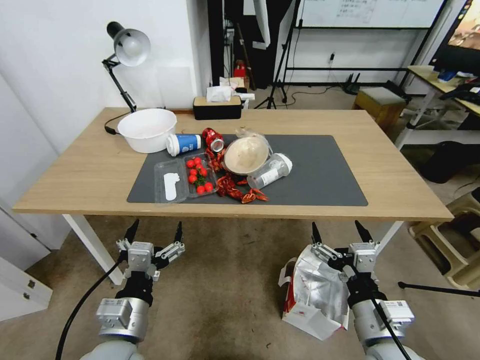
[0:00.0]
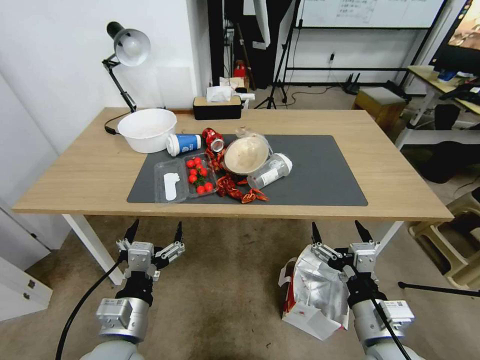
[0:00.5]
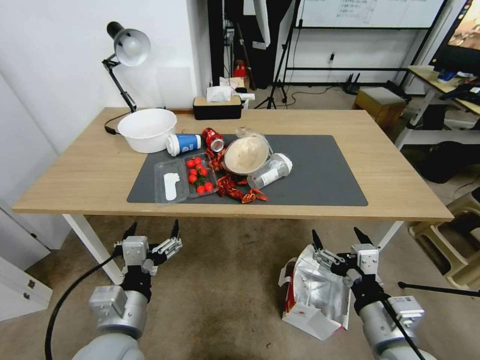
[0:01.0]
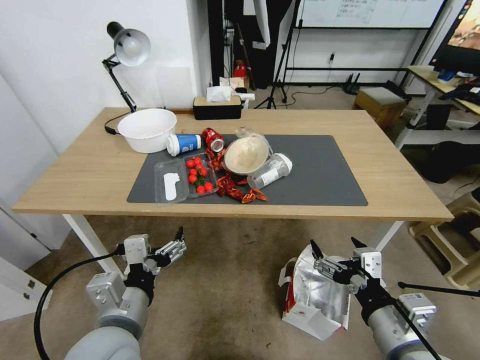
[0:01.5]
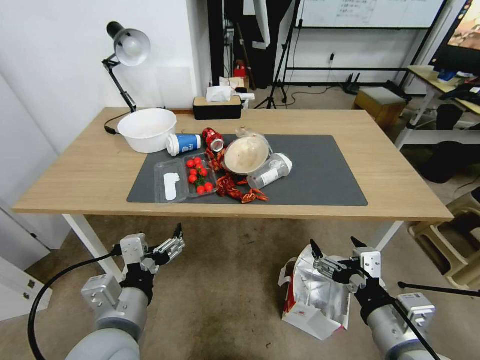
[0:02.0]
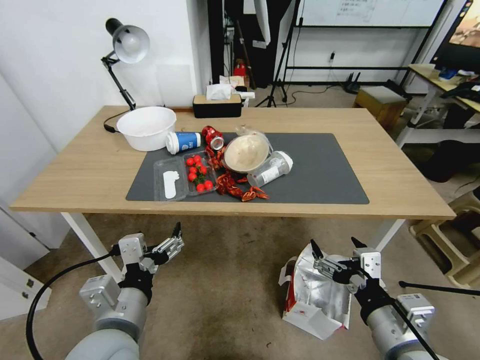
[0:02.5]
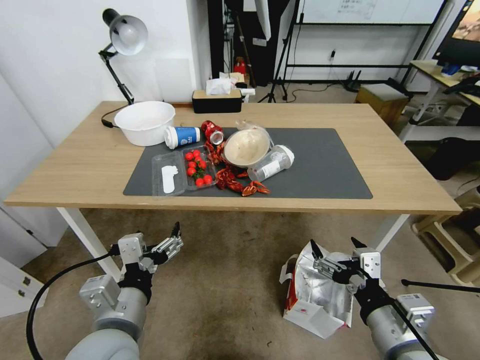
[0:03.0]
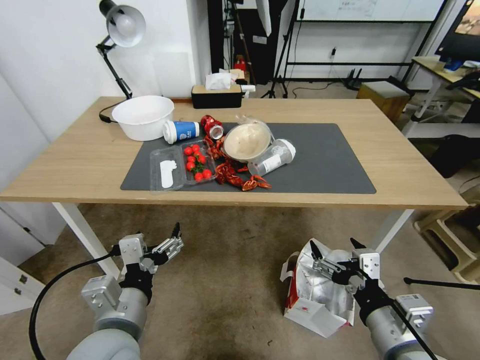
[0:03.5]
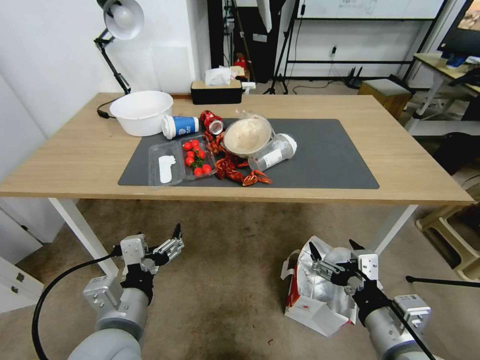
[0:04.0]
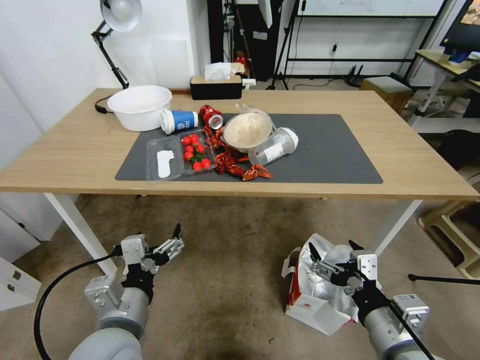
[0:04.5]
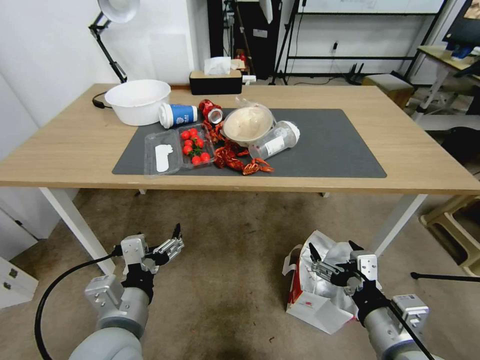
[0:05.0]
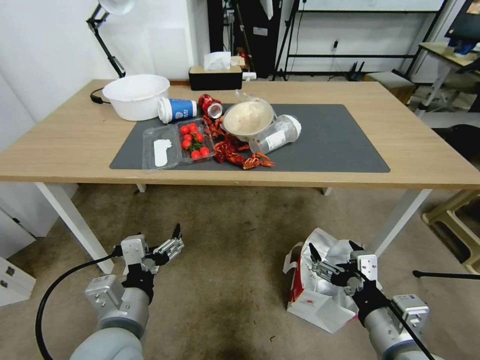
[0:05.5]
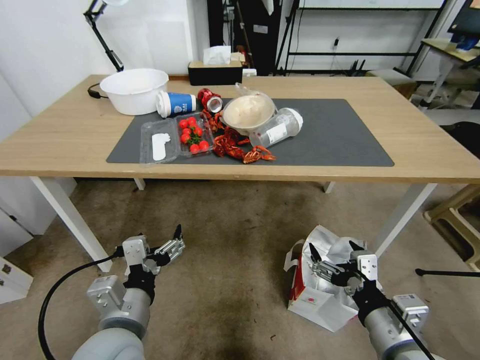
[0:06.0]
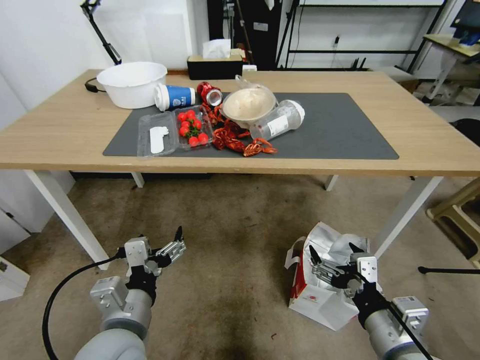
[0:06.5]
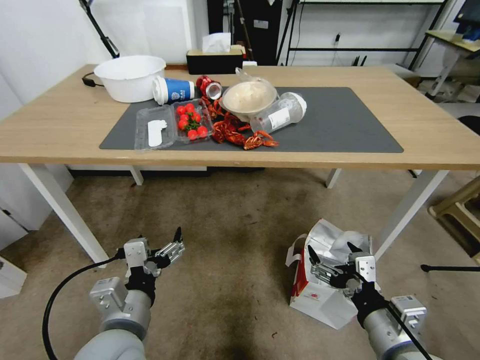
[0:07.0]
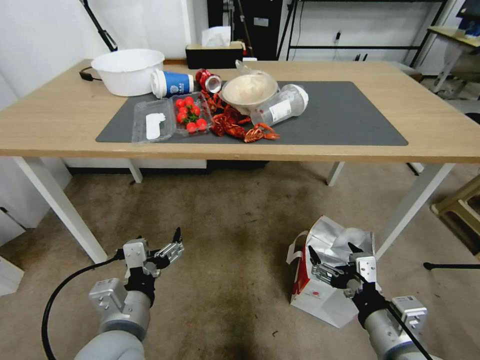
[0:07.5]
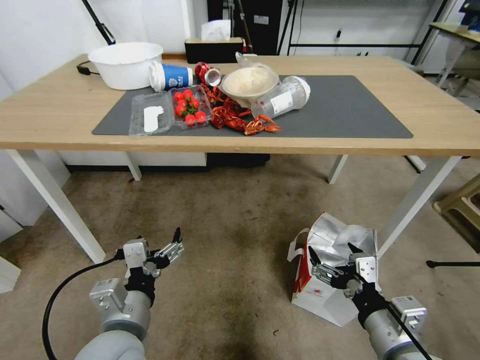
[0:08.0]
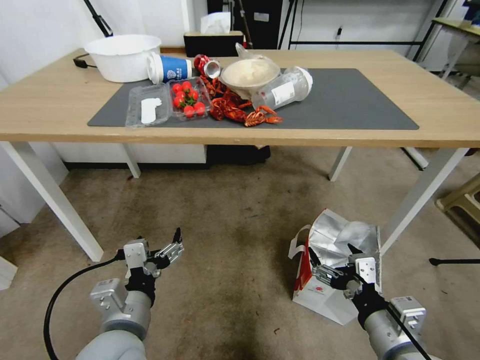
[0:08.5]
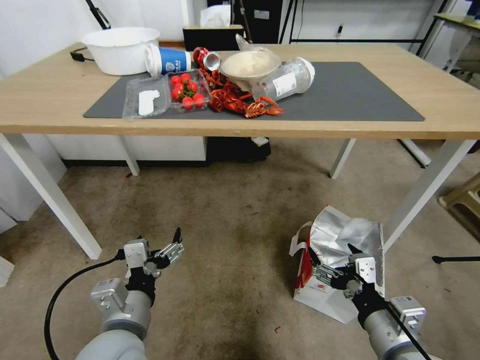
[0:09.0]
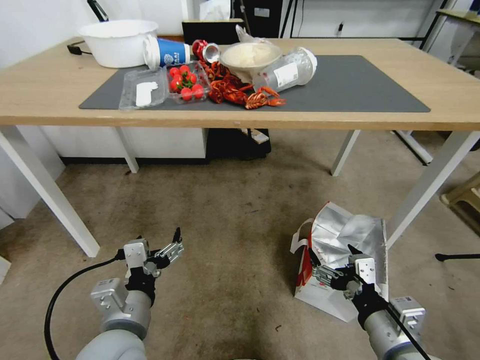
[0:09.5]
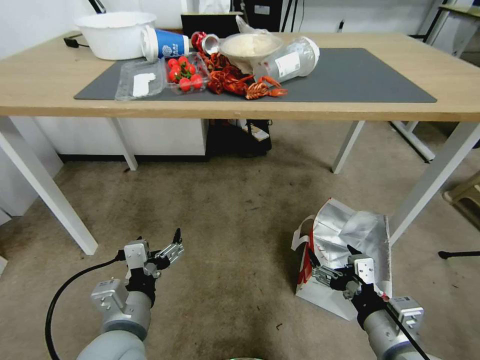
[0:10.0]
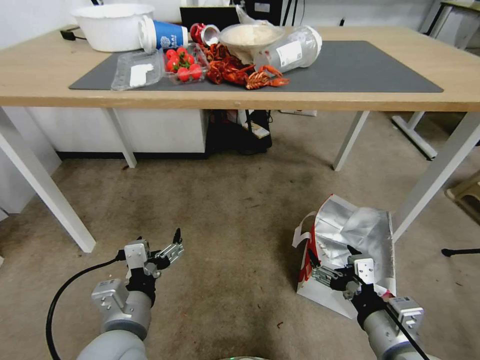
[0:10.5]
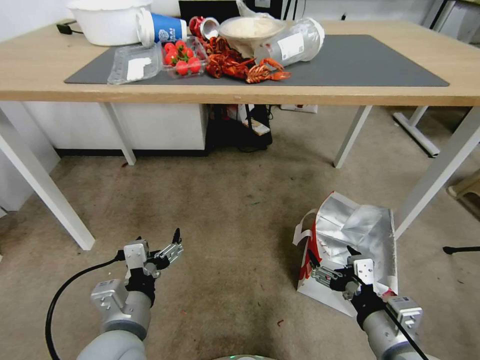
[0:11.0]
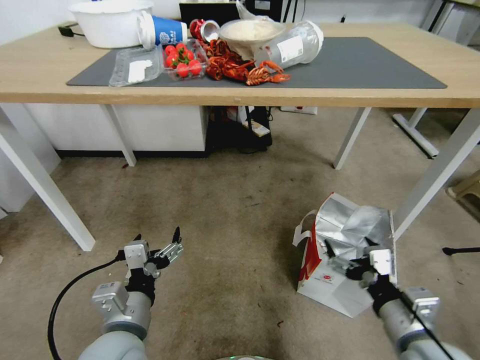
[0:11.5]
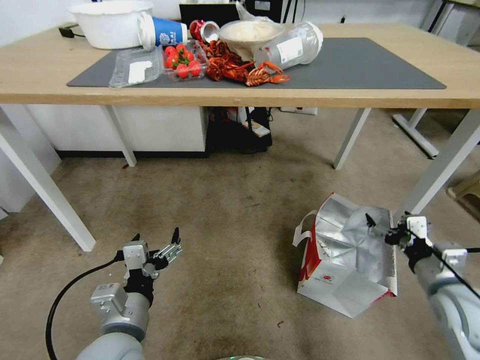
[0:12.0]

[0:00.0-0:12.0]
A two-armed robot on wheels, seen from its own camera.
Task of the whole recording: Pick up the food delivery bag from the floor and place it on the table.
0:10.0 to 0:12.0: The right gripper moves to the right and forward, roughly 15 cm.

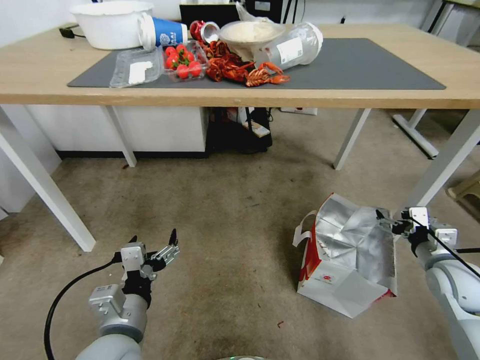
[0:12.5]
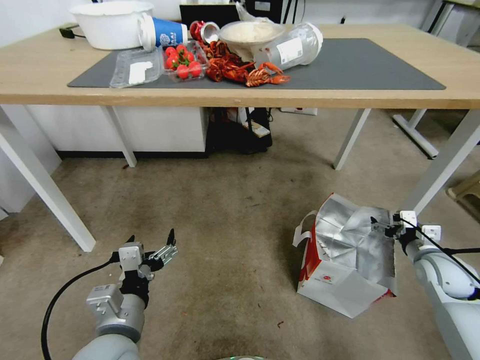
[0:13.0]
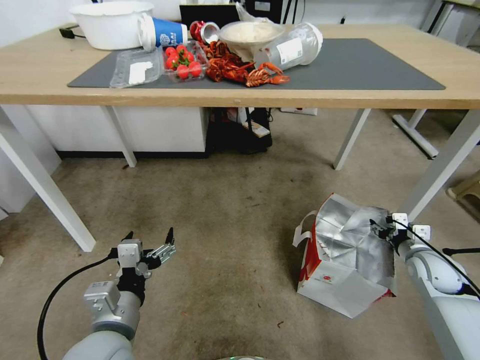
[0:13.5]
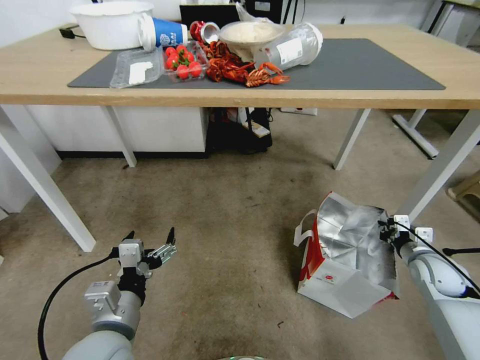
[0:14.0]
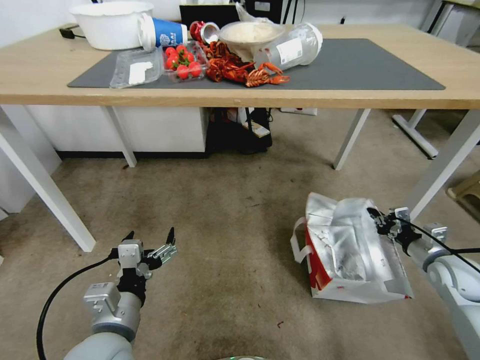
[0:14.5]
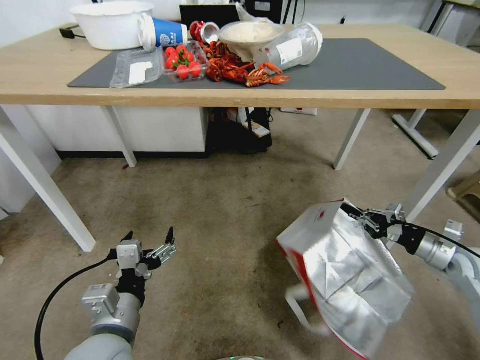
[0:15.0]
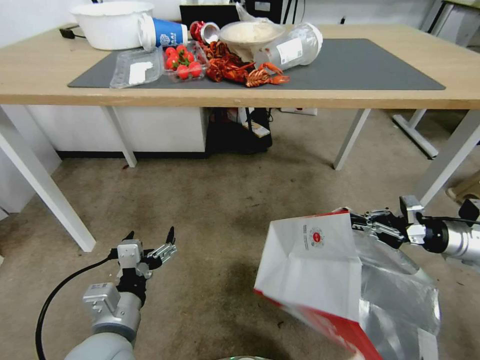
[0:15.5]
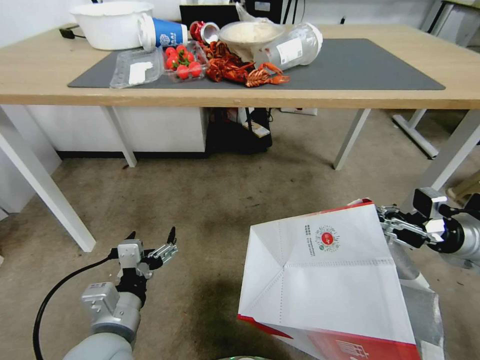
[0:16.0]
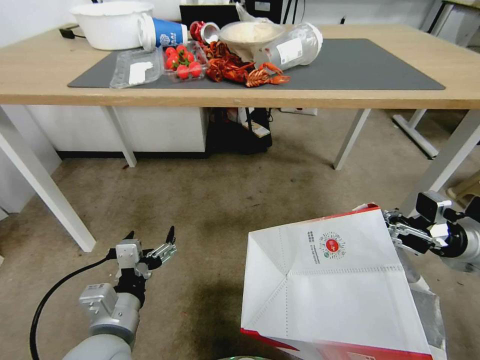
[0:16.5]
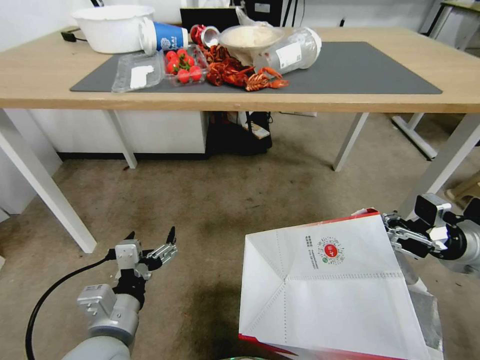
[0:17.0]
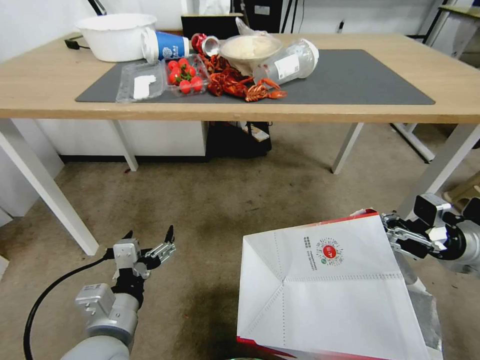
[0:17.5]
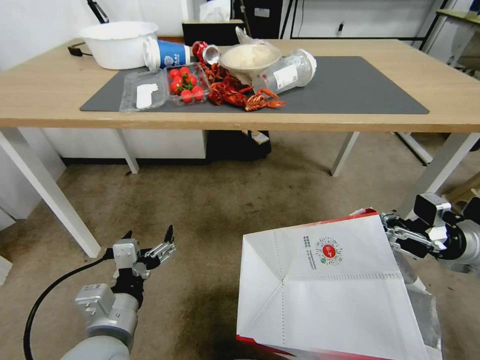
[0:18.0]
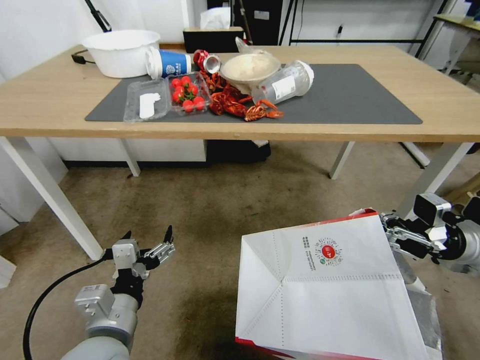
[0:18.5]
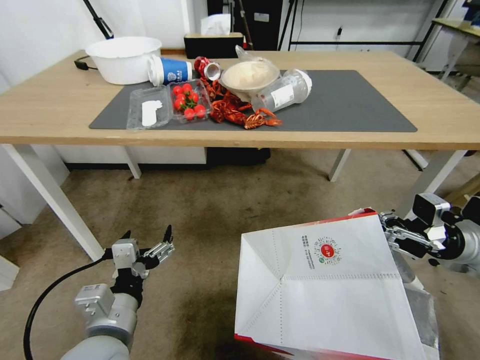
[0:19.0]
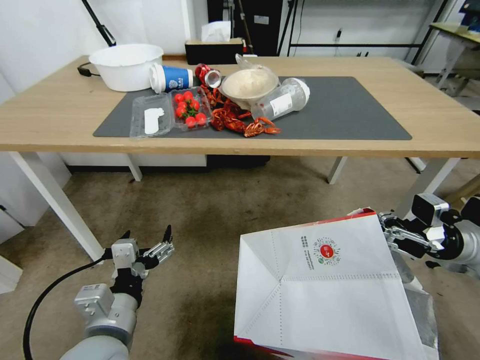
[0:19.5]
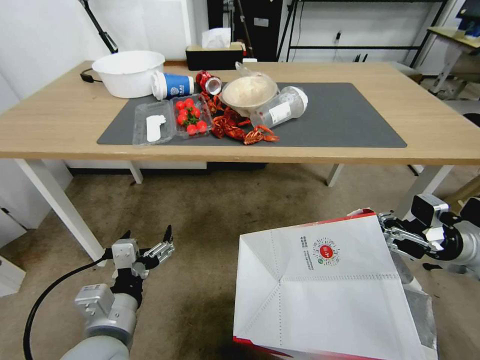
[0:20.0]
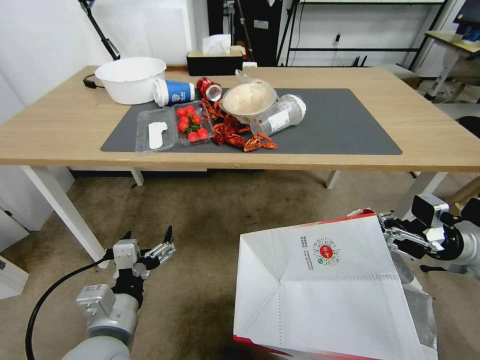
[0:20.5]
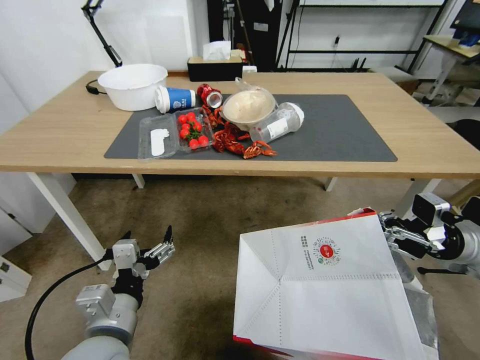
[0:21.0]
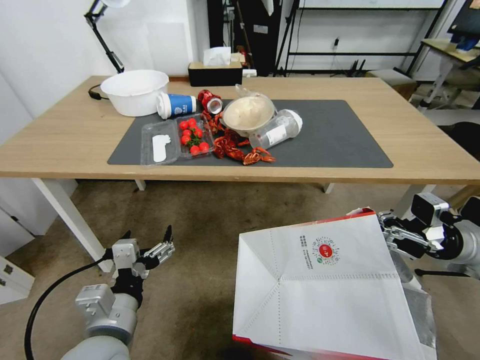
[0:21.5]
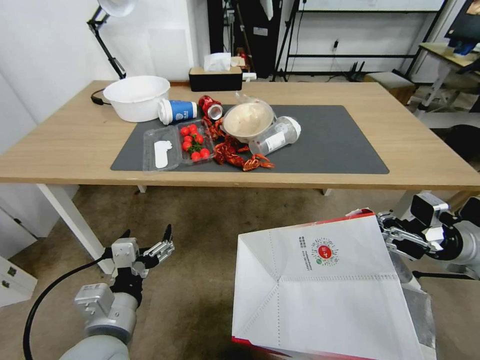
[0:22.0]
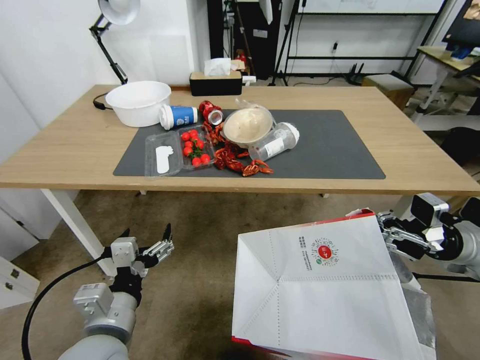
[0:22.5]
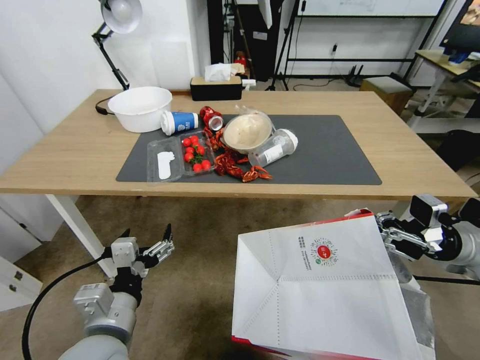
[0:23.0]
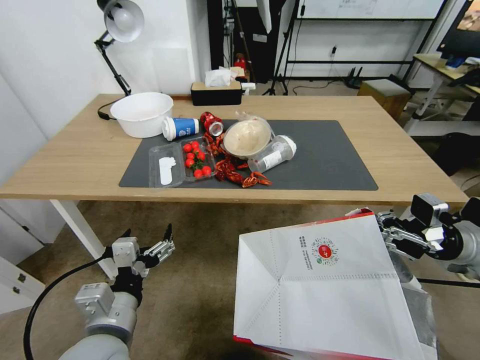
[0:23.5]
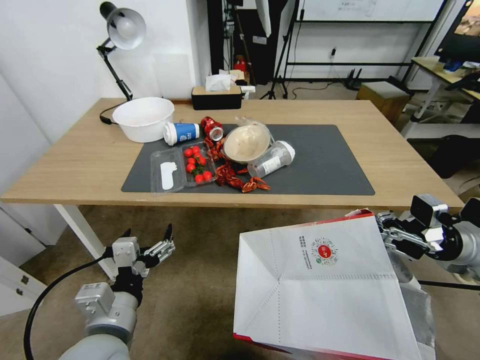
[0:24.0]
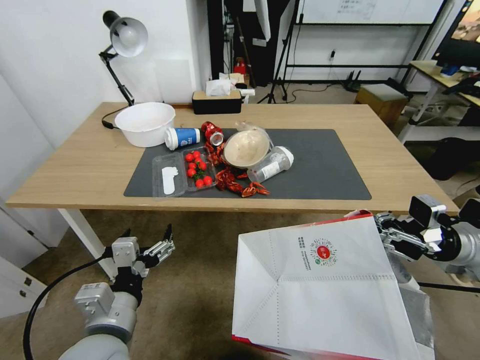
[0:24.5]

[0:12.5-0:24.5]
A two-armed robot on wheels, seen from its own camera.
Task of the whole recording: Pick up the food delivery bag from the floor and place it on the table.
0:12.5 to 0:14.5: The right gripper shifts by about 5 cm, and closes up.
0:14.5 to 0:16.5: The right gripper moves upward, roughly 10 cm.

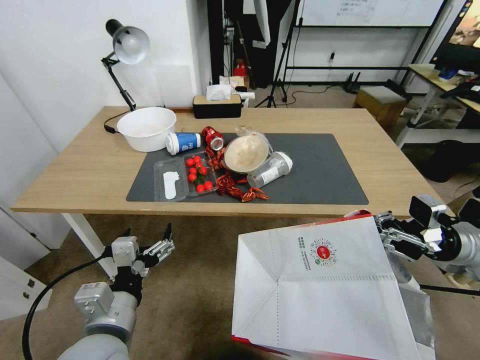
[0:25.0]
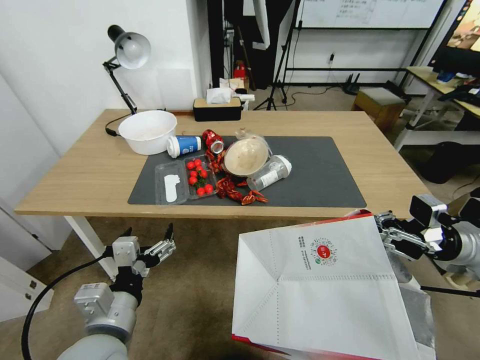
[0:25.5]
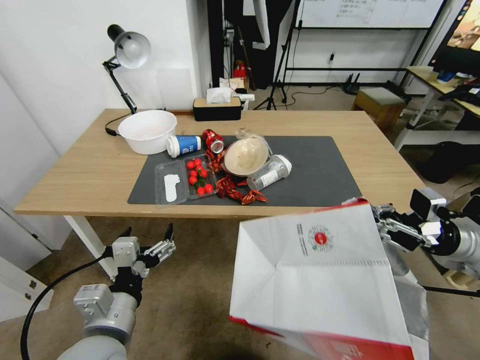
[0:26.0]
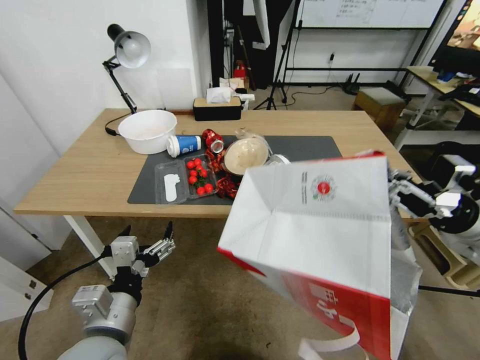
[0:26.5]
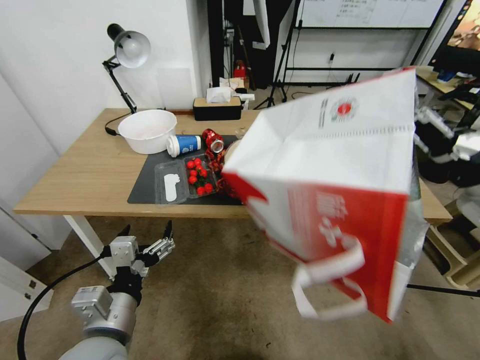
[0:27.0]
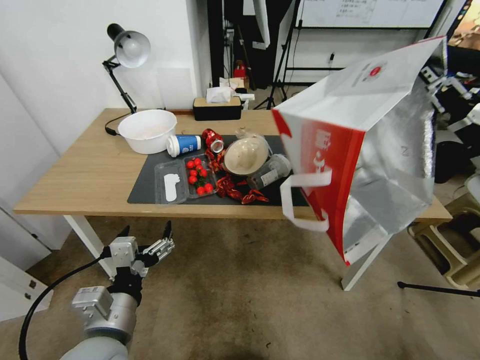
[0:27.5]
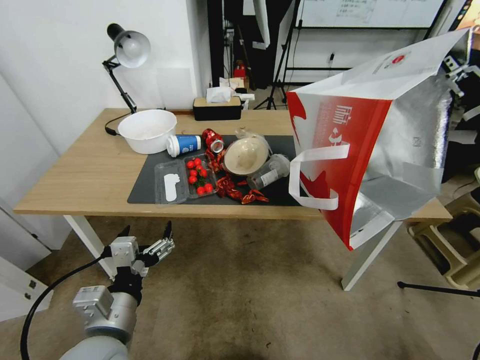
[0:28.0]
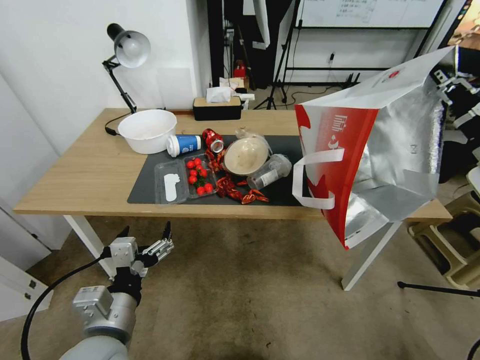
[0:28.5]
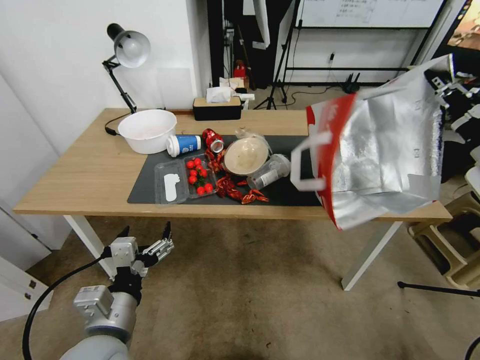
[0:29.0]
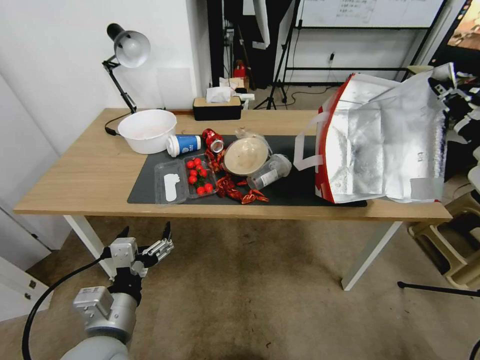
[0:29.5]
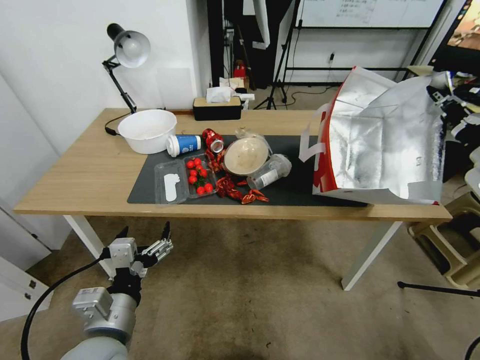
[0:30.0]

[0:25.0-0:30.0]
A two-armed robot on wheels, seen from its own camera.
Task of the whole recording: Pick up the food delivery bag from the floor and place it on the table.
0:25.0 to 0:27.5: The right gripper shifts some 15 cm upward.
